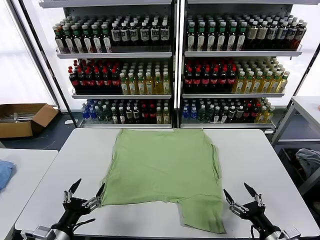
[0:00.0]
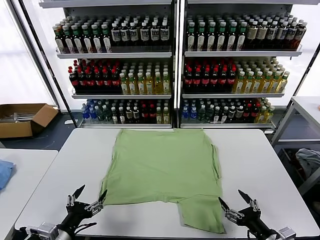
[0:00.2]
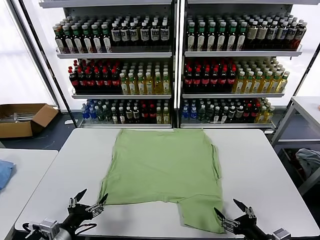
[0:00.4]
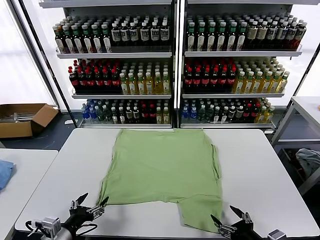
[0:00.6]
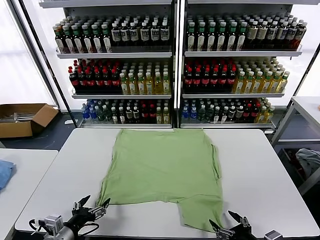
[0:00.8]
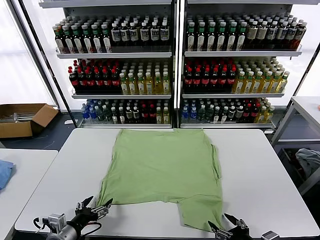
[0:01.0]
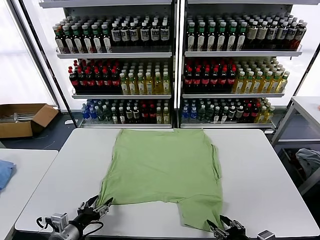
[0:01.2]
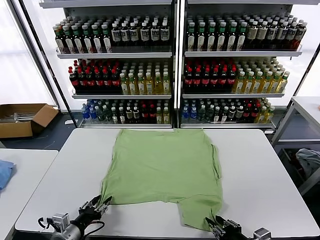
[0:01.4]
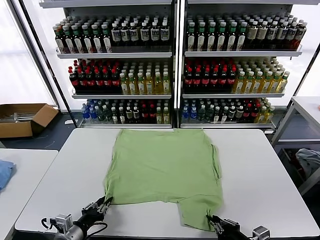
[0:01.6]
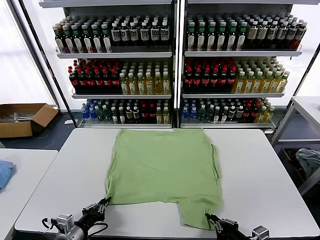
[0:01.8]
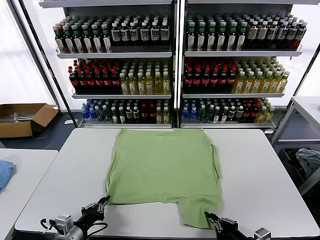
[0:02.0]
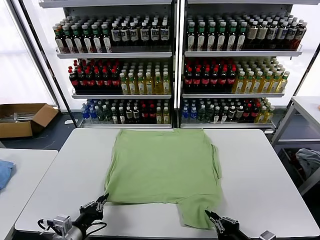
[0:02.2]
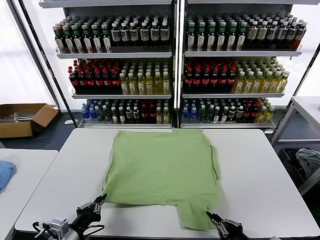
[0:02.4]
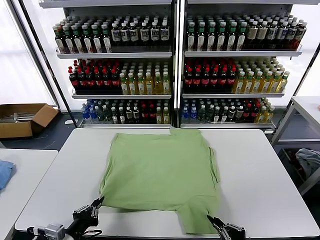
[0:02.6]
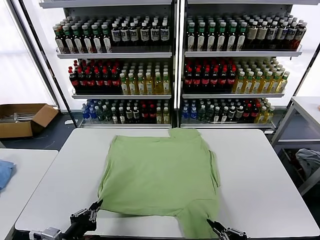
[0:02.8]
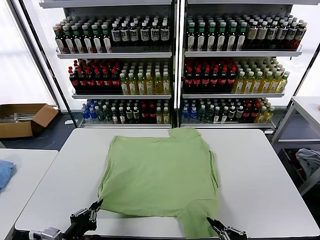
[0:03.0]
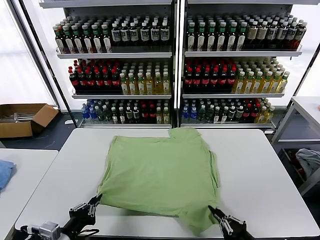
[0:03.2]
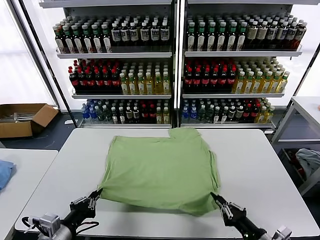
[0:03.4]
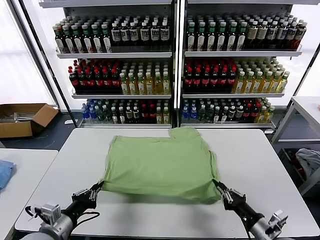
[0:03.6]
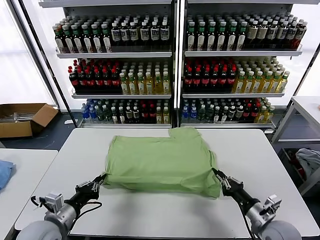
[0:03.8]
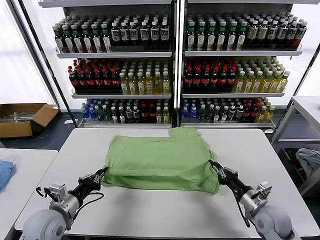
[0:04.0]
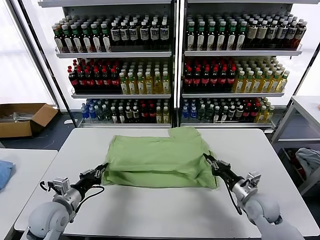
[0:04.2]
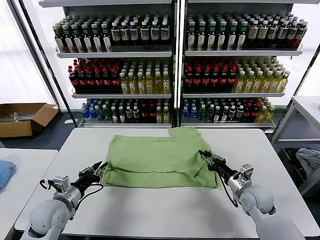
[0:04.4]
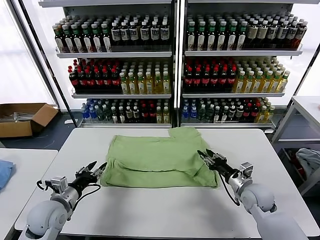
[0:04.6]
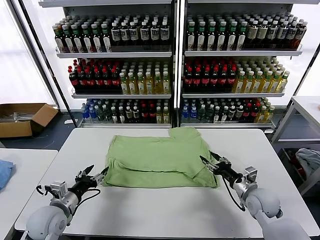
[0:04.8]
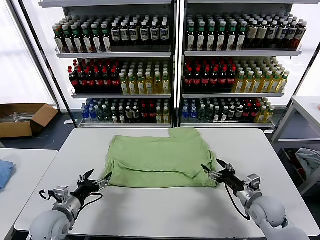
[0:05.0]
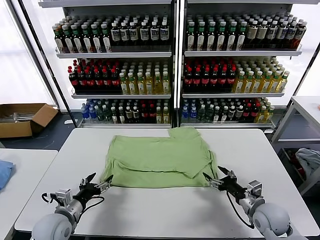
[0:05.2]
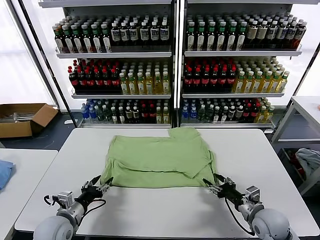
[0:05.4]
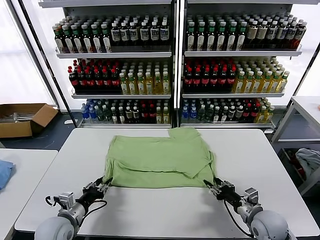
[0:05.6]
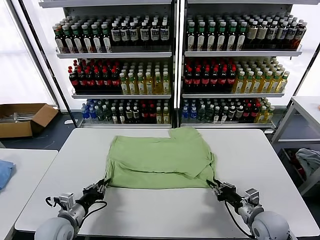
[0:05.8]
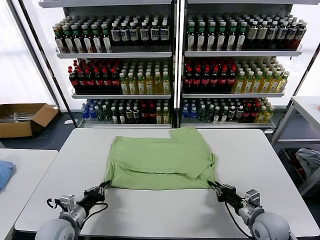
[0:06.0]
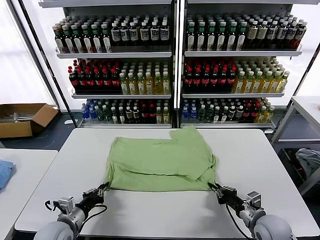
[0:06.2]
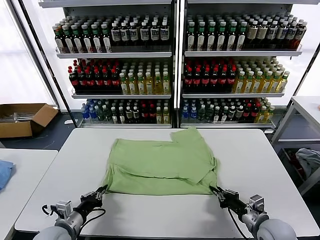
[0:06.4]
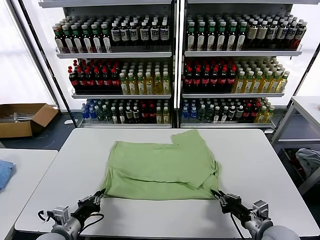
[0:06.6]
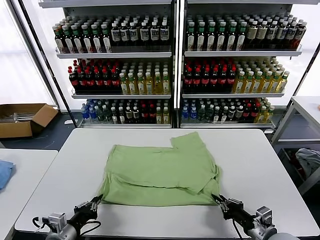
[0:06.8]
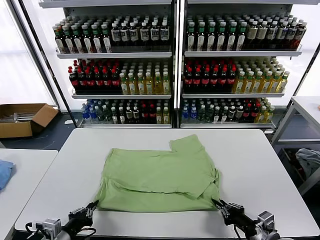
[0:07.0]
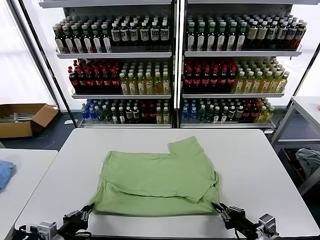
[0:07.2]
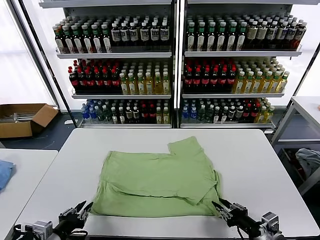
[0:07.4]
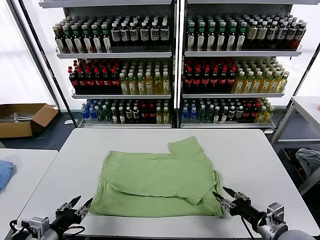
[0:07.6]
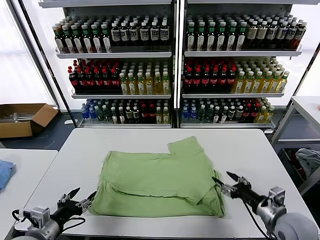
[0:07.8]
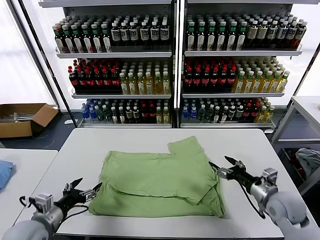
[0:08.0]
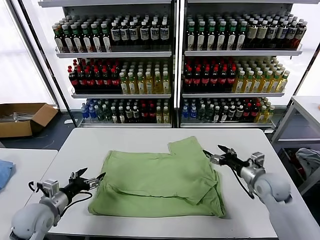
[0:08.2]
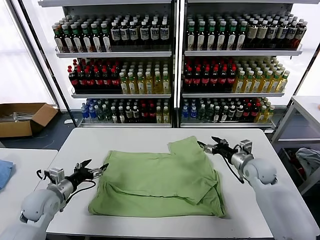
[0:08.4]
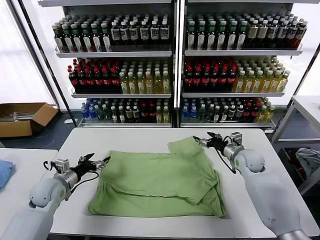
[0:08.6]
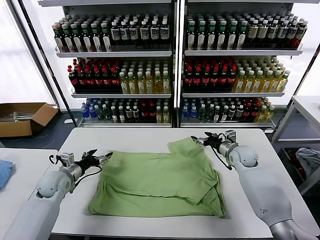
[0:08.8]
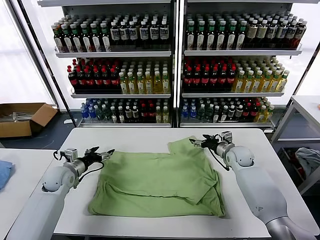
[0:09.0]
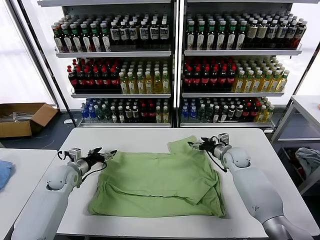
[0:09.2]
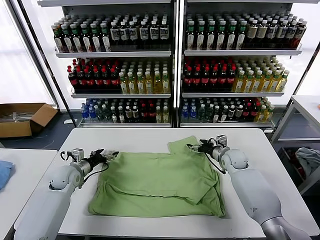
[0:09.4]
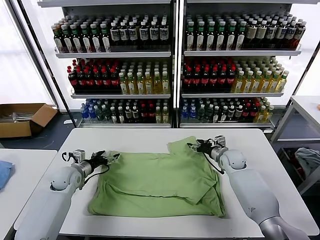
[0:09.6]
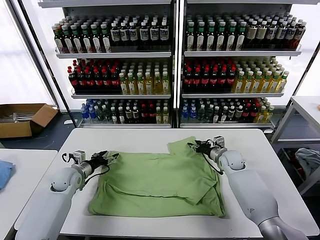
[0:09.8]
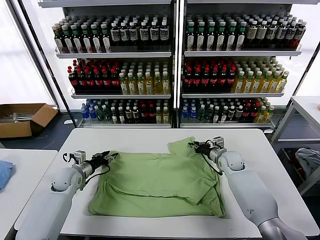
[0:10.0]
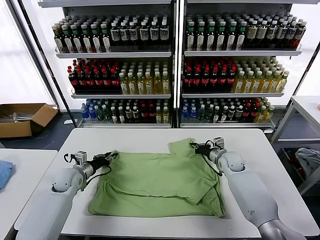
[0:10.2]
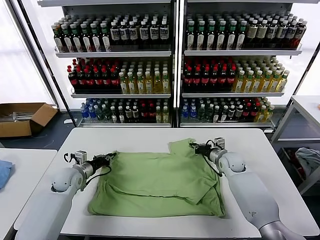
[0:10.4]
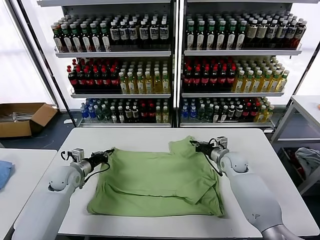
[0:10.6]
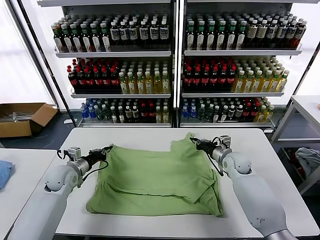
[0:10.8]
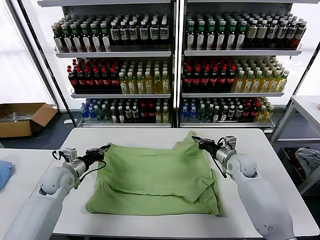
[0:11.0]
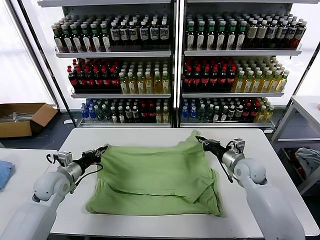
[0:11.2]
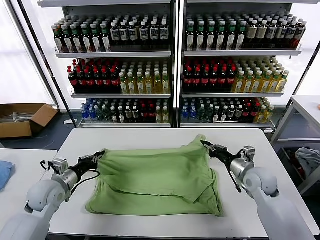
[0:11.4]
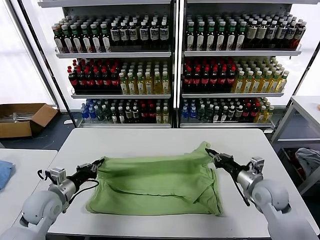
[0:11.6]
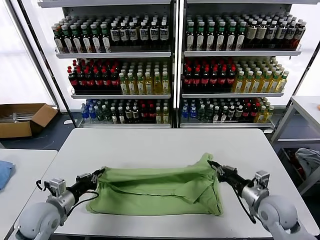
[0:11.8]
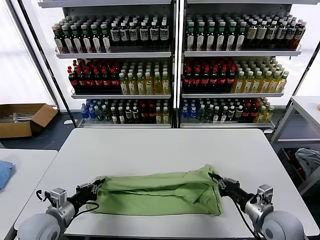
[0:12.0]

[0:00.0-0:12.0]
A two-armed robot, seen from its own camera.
Task of the whole recording: fold and organize the clothes.
Step, 0:00.0 to 0:01.8: use both grippers simultaneously to clamp the lower edge of the clothing fabric.
Step, 0:02.0 to 0:04.6: use both grippers to drag the lower edge of the fabric forward and fold it over the upper edge.
Step, 0:05.0 to 0:07.4: Drag the clothes downward with both gripper.
Step, 0:07.6 to 0:10.4: use both grippers simultaneously to clamp the upper edge of the clothing fabric.
0:01.6 to 0:03.0: The left gripper heads upward and backward, covering some 10 cm.
0:03.0 to 0:04.4: The left gripper heads forward, covering roughly 15 cm. Meanwhile the right gripper is displaced forward by roughly 25 cm, and opens up.
0:04.4 to 0:06.0: The right gripper heads backward, covering about 10 cm, and opens, then closes again. Meanwhile the left gripper ends up approximately 5 cm from where it was, and opens, then closes once more.
0:06.0 to 0:07.6: The left gripper shifts approximately 10 cm backward and upward, and opens, while the right gripper moves upward, approximately 5 cm, and opens.
0:07.6 to 0:09.0: The grippers both shift forward by roughly 30 cm. The left gripper opens.
0:09.0 to 0:10.4: The left gripper closes. Meanwhile the right gripper closes.
0:10.4 to 0:12.0: Both grippers move backward, roughly 25 cm.

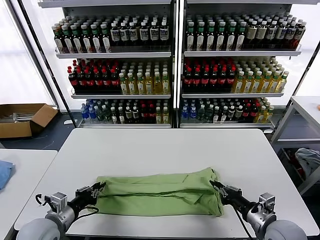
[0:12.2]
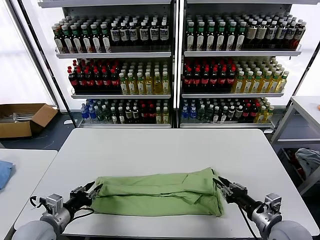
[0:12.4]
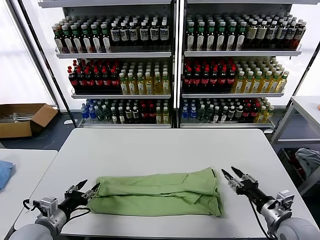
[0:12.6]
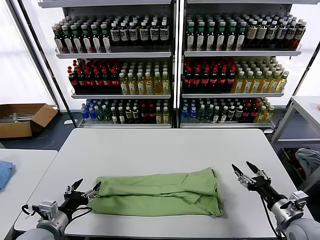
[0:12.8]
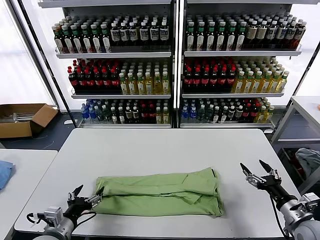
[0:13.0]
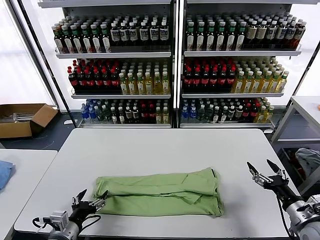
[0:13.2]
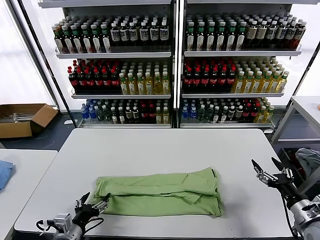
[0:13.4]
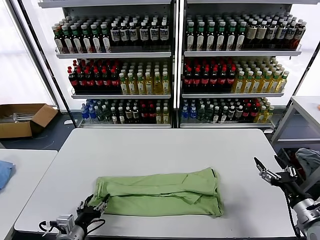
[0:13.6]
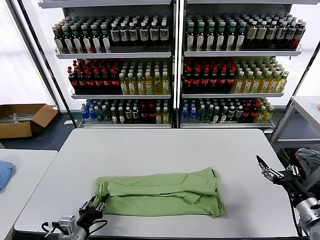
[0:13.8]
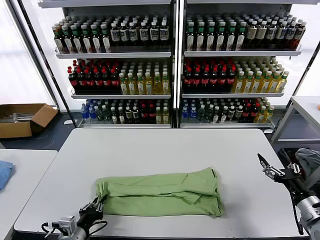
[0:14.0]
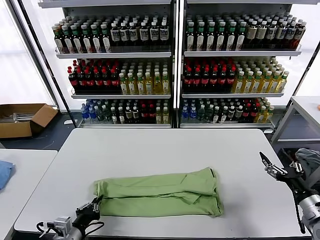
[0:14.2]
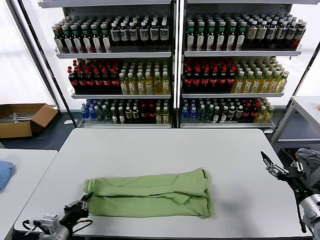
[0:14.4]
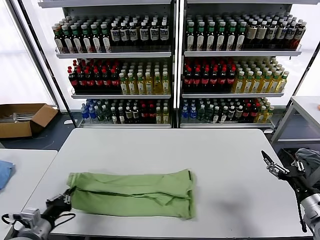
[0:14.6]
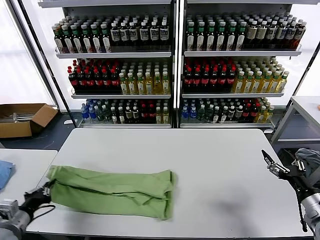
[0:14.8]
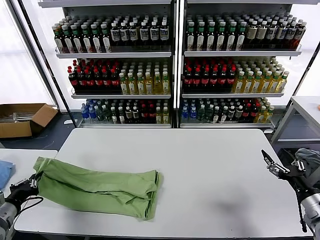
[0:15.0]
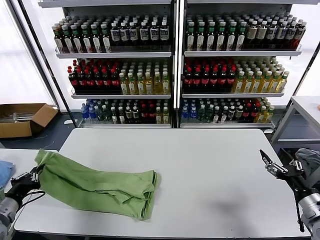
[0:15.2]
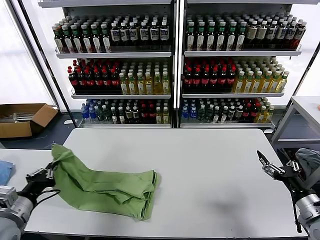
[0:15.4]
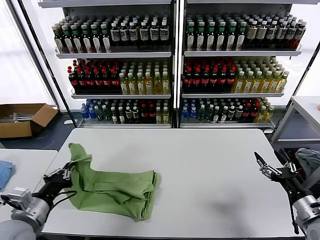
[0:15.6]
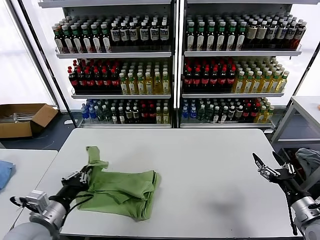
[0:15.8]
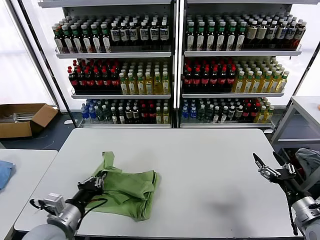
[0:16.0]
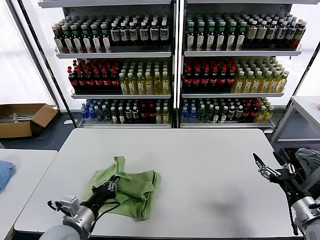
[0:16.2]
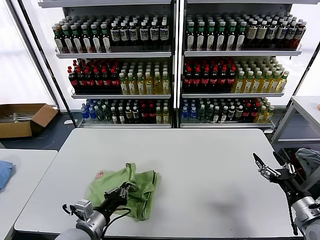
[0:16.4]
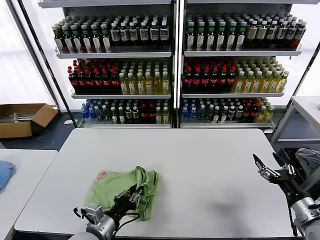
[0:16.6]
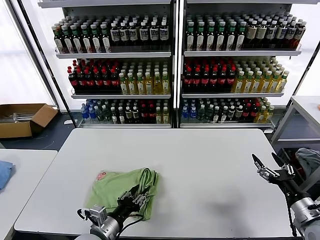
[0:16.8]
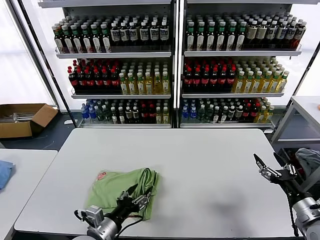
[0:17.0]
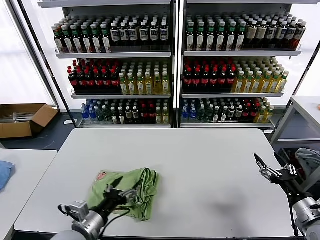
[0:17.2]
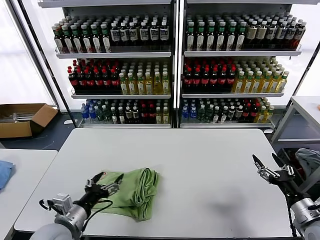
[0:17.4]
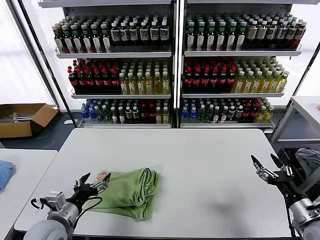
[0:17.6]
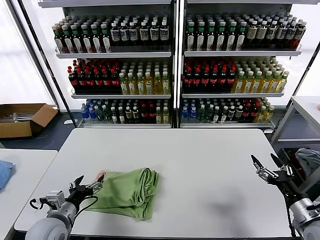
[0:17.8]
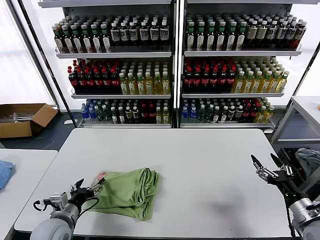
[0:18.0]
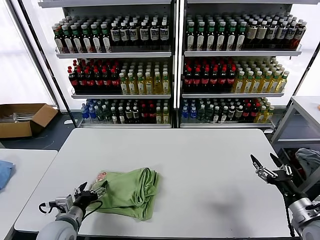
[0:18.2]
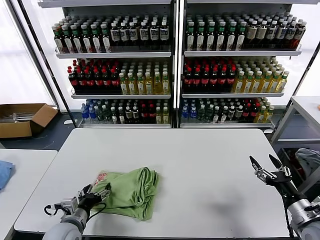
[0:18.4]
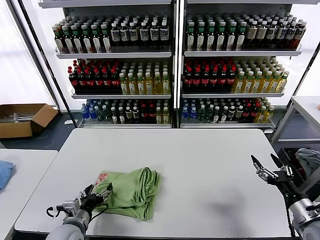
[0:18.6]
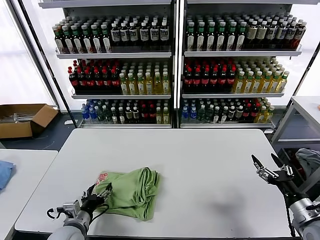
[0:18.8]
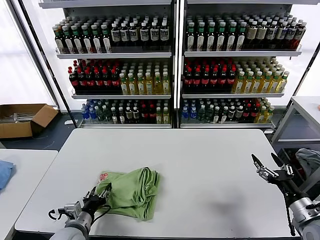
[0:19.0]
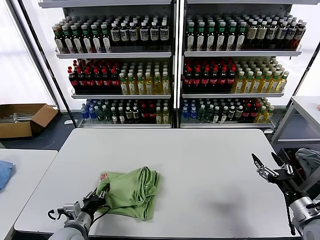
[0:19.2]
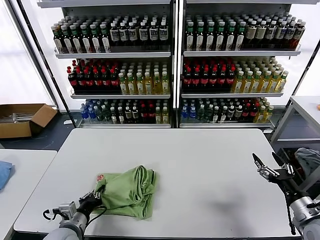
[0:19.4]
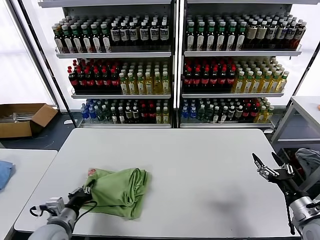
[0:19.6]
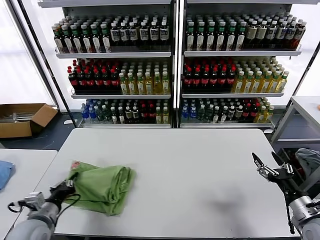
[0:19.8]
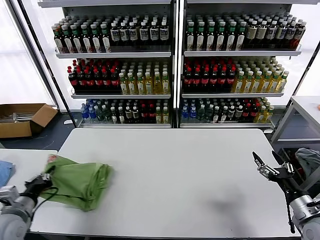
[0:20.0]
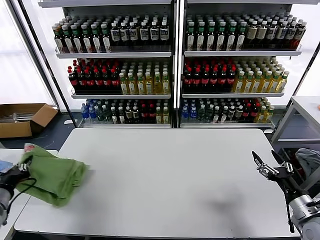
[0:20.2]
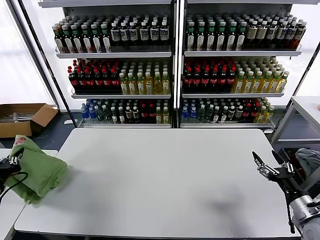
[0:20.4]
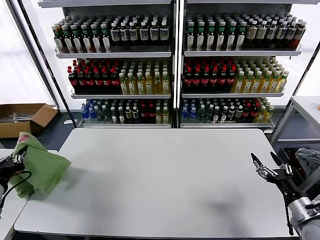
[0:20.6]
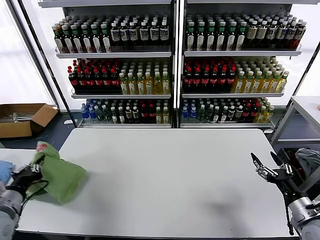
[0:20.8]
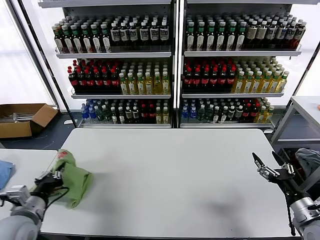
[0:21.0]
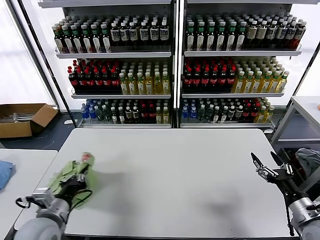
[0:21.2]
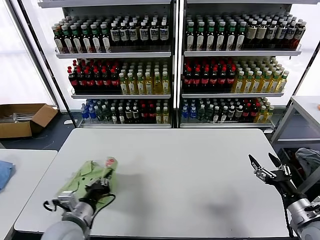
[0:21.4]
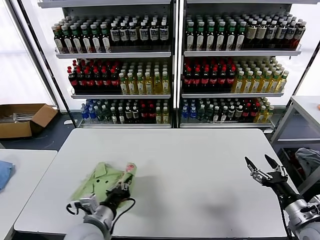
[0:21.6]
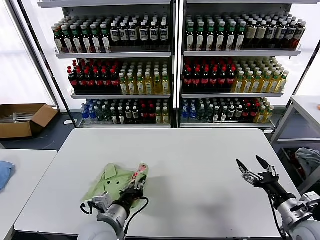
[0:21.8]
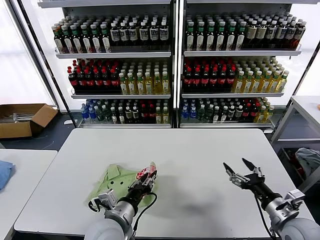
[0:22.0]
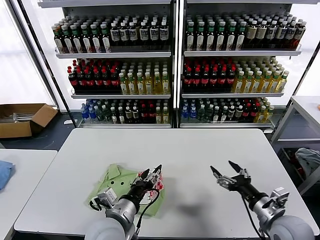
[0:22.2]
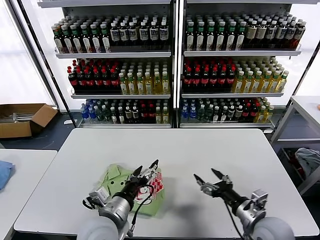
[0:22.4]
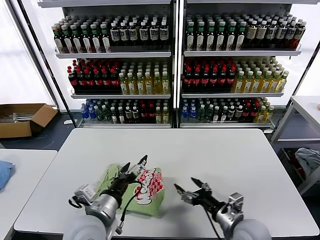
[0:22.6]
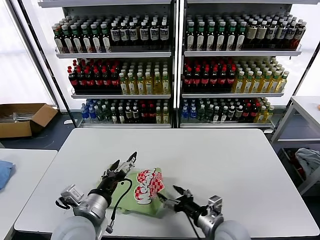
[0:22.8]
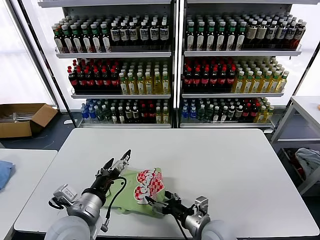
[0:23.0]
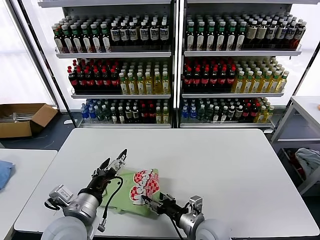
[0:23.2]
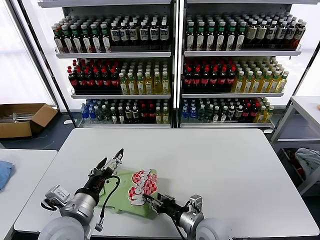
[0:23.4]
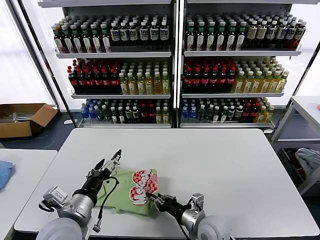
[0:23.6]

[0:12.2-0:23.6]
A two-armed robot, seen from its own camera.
Task of the whole recording: fold and organize the clothes.
Step, 0:12.6 to 0:14.0: use the left gripper to clamp the left edge of the fabric.
Step, 0:14.4 to 0:17.0: use the left gripper to drag the left edge of the fabric to the left and folds it over the right edge.
Step, 0:17.2 to 0:22.4: Flip the folded clothes over with left gripper.
0:12.2 to 0:13.6: The left gripper goes roughly 5 cm backward, and opens its fingers. Meanwhile the right gripper heads to the right, covering about 10 cm, and opens.
0:13.6 to 0:15.0: The left gripper is displaced to the left and upward by roughly 20 cm, and closes.
0:15.0 to 0:16.4: The left gripper travels to the right by about 20 cm.
0:16.4 to 0:17.8: The left gripper is displaced to the left by some 10 cm, and opens its fingers.
0:17.8 to 0:19.4: The left gripper ends up roughly 5 cm from where it was, and closes up.
0:19.4 to 0:20.8: The left gripper goes roughly 20 cm upward and to the left.
0:20.8 to 0:22.2: The left gripper goes roughly 30 cm to the right, and opens its fingers, while the right gripper goes approximately 10 cm to the left.
0:22.2 to 0:23.6: The right gripper shifts roughly 20 cm to the left and downward, and closes up. The left gripper shifts roughly 10 cm to the left, and opens.
